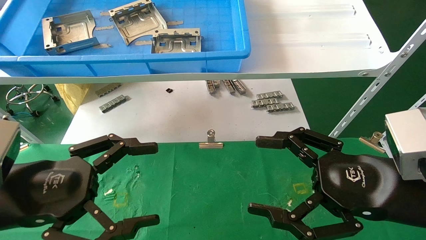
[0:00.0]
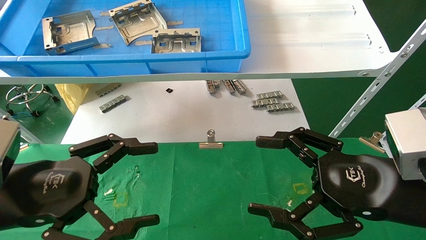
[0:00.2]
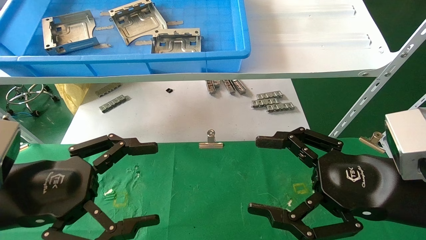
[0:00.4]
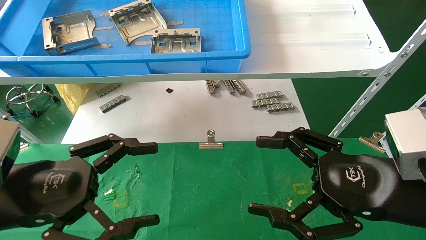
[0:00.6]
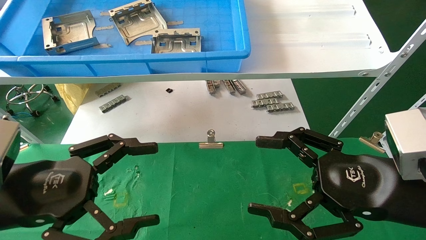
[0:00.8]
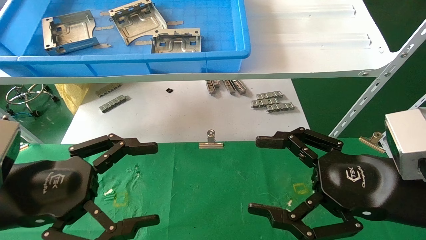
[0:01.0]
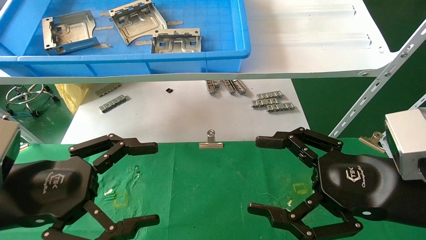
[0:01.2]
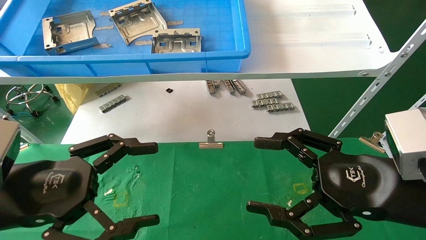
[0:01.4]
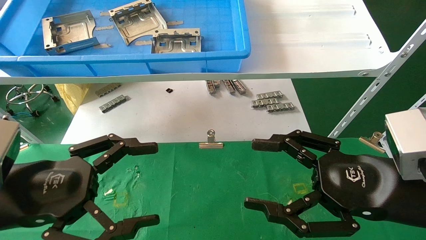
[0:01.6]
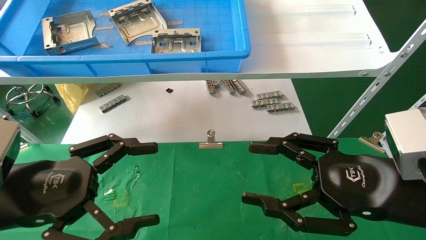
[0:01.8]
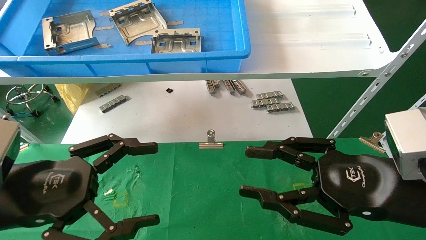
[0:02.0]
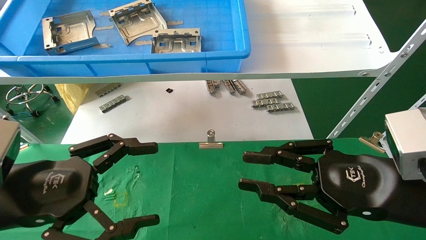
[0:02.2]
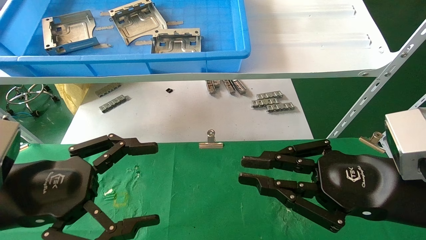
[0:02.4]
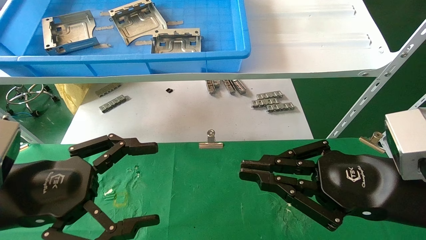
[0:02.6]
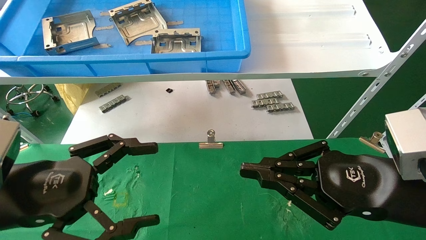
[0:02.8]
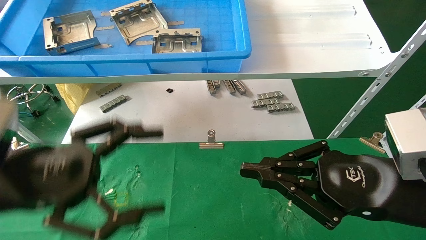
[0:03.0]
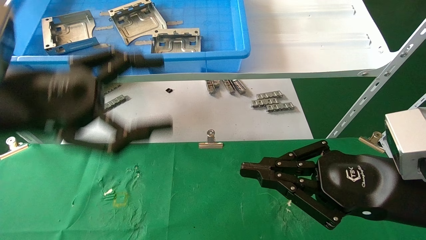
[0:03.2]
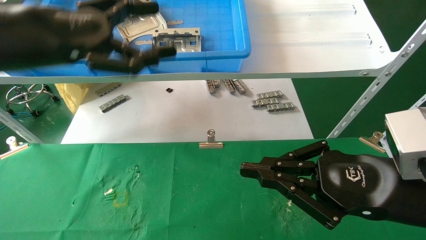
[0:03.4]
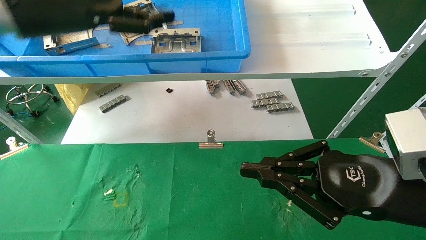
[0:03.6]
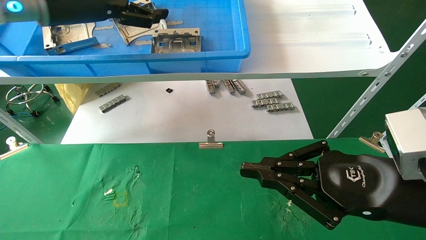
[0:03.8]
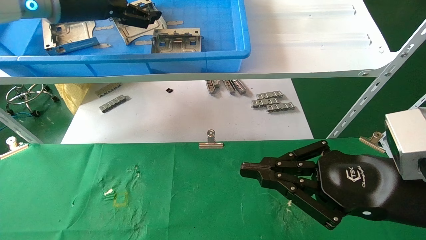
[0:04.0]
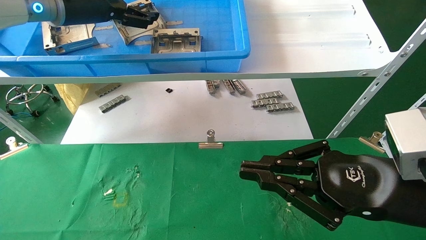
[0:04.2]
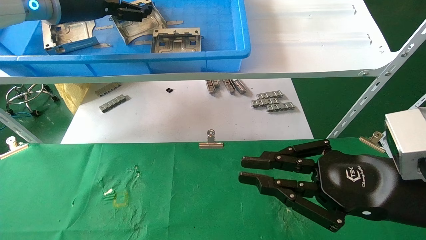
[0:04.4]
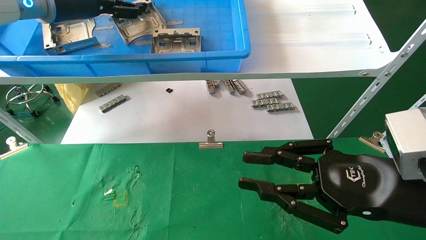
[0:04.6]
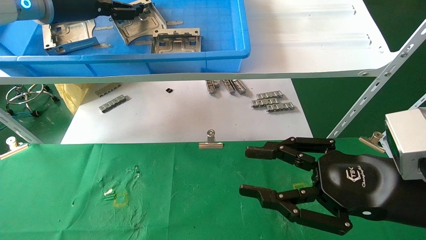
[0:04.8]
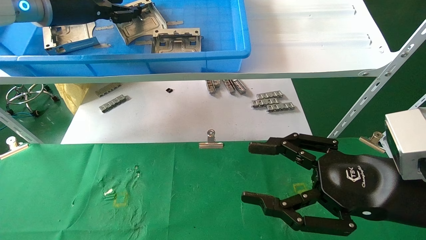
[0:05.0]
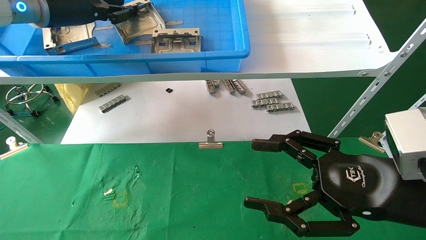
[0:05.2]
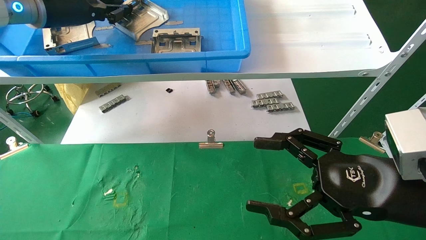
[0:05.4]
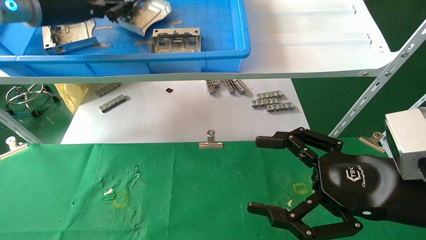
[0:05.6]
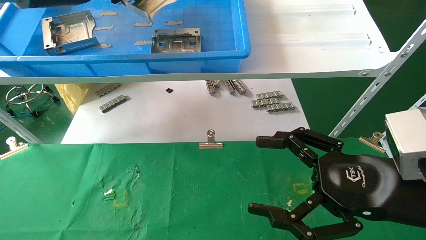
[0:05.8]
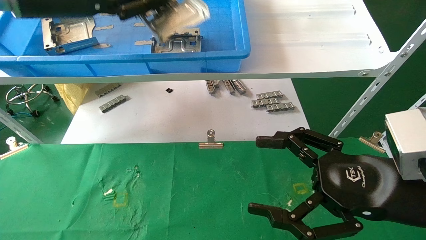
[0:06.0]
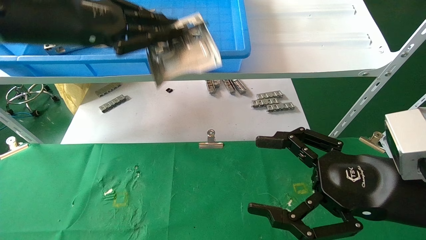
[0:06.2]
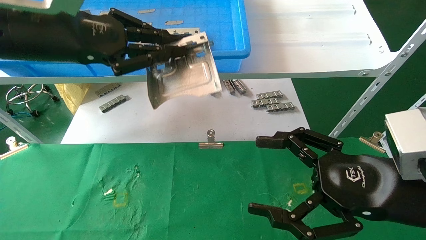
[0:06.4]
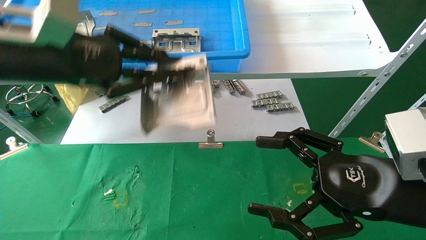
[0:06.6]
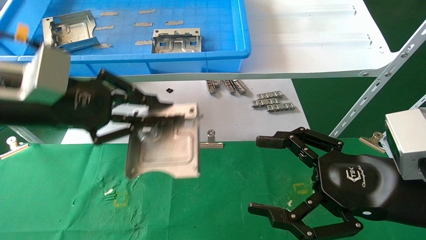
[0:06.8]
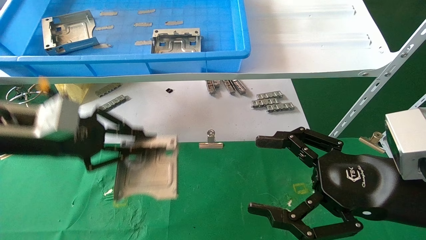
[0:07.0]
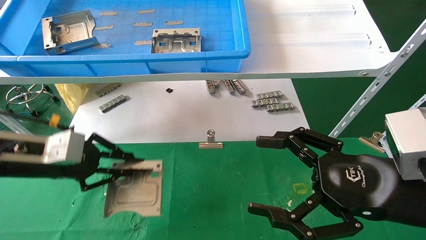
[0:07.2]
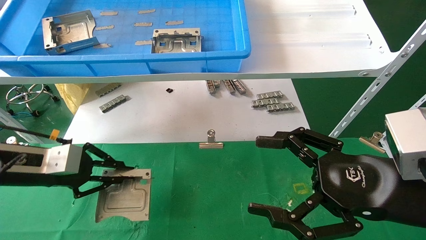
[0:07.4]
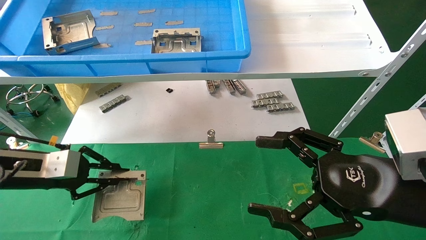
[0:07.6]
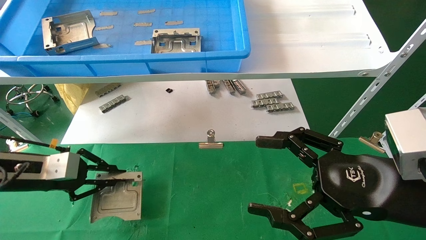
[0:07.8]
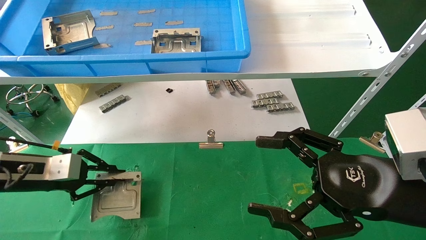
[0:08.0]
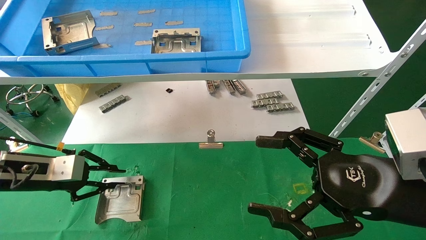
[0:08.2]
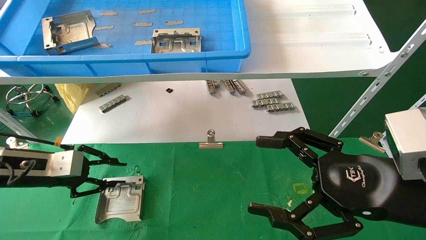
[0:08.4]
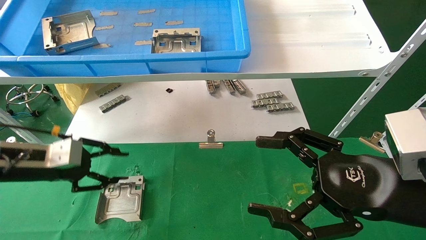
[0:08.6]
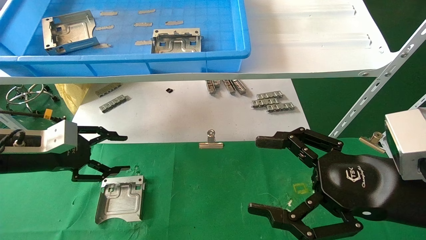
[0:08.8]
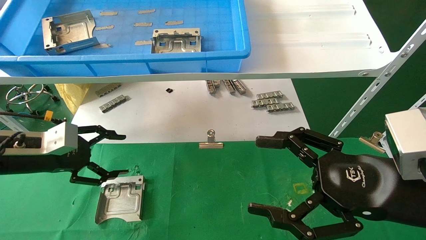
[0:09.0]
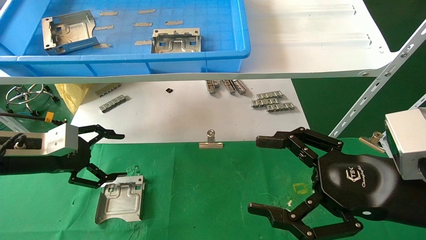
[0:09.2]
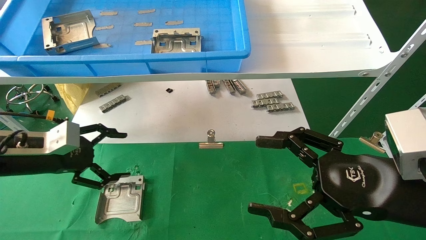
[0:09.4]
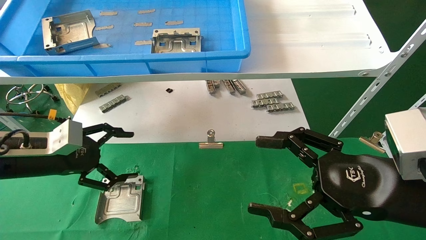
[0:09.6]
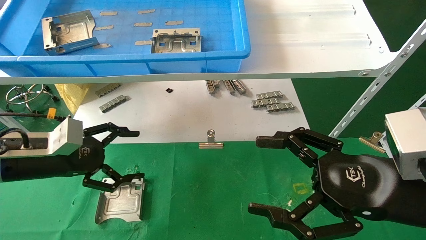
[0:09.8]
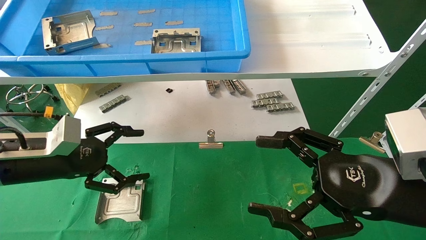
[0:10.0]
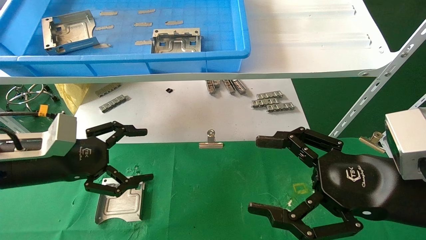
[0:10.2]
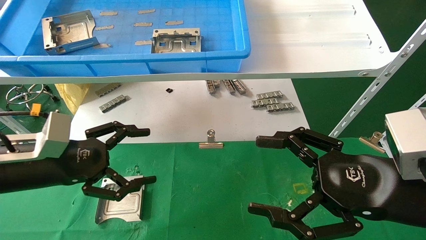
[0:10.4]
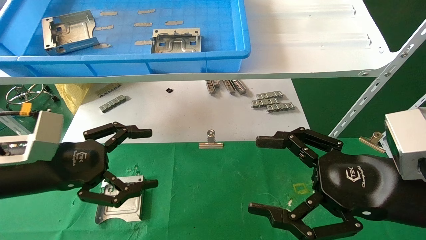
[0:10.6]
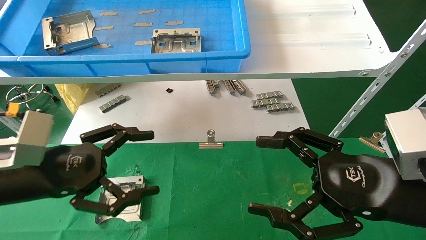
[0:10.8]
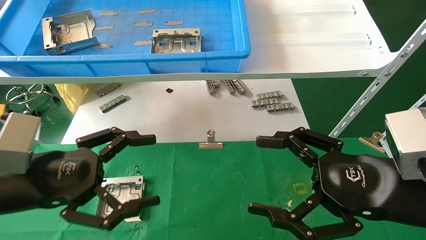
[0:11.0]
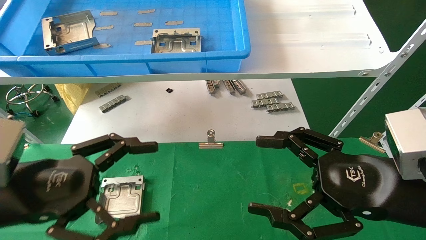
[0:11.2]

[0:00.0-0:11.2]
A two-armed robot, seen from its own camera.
Task of the whole recording: use the mechanical arm to pick up the parts and place them on the table.
Step, 0:03.0 to 0:06.2: Pick up the hard drive bracket from the feeding area.
Step, 0:06.4 to 0:08.6: Place the hard drive bracket into the box.
0:00.0 to 0:01.6: Both grippers stay about where they are.
0:01.6 to 0:03.2: The right gripper closes its fingers; the left gripper goes about 10 cm upward.
0:03.2 to 0:04.8: The left gripper is displaced forward and upward by approximately 20 cm.
0:04.8 to 0:06.4: The left gripper moves backward and downward, about 15 cm, and closes; the right gripper opens up.
0:06.4 to 0:08.0: The left gripper heads downward and to the left, covering some 25 cm.
0:08.0 to 0:09.6: The left gripper opens its fingers.
0:09.6 to 0:11.2: The left gripper travels backward and to the right by roughly 15 cm.

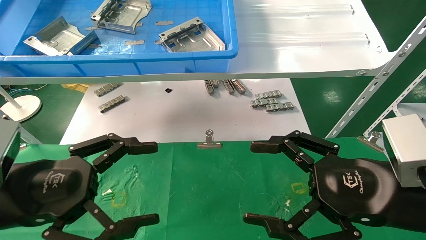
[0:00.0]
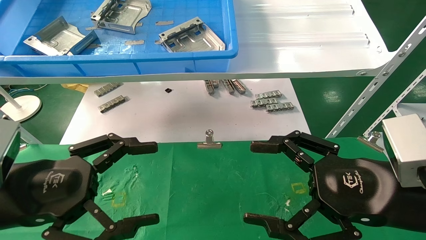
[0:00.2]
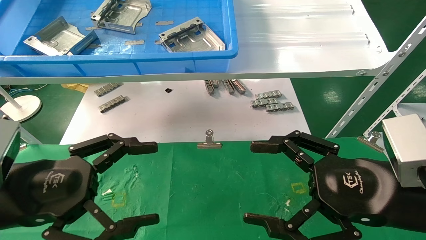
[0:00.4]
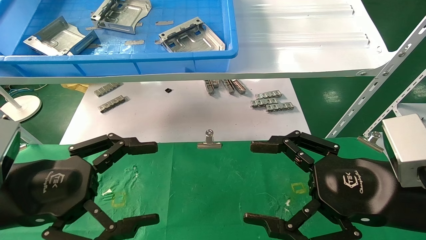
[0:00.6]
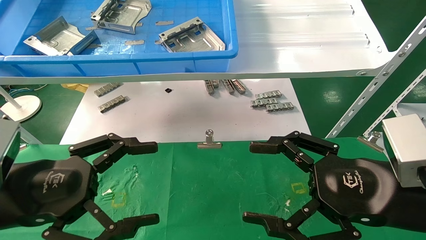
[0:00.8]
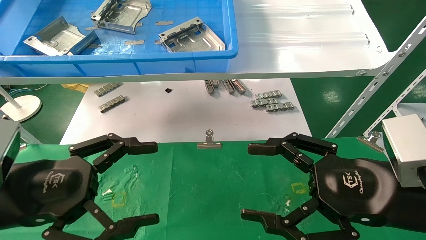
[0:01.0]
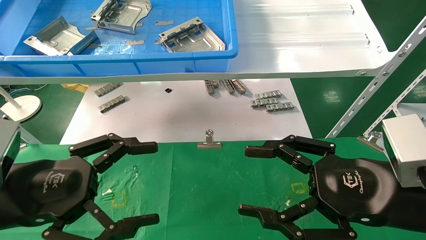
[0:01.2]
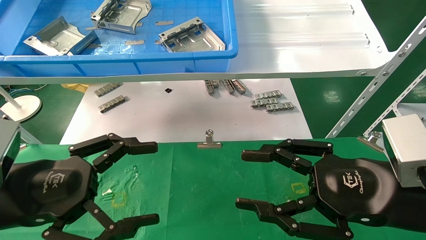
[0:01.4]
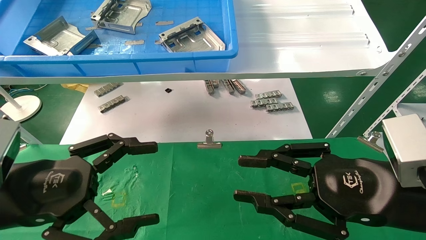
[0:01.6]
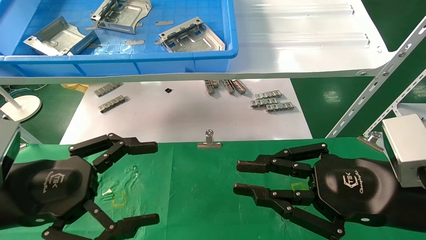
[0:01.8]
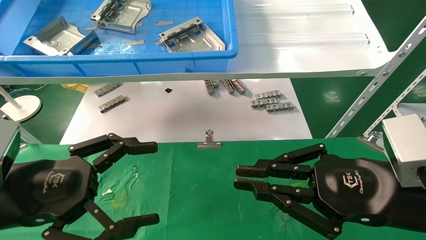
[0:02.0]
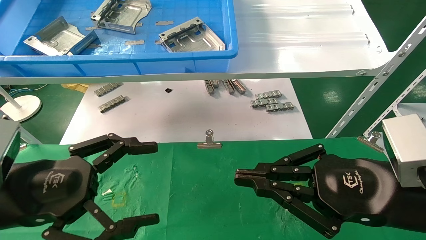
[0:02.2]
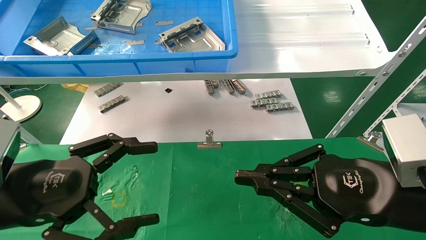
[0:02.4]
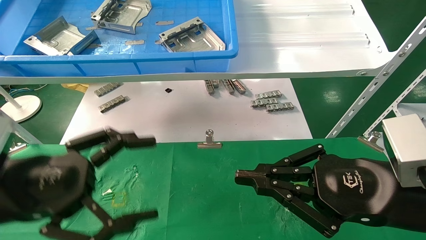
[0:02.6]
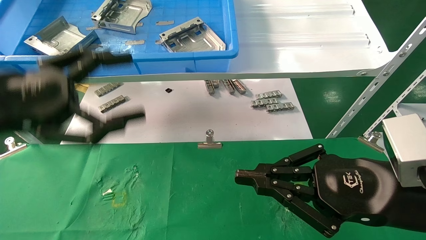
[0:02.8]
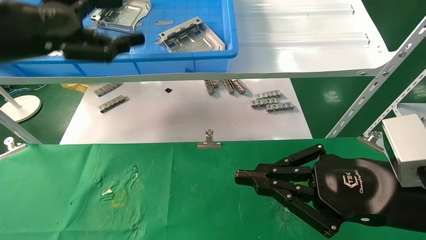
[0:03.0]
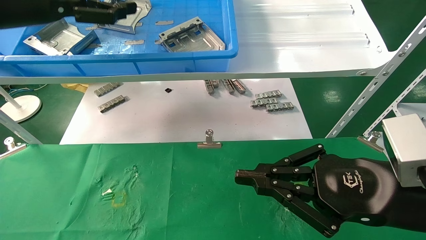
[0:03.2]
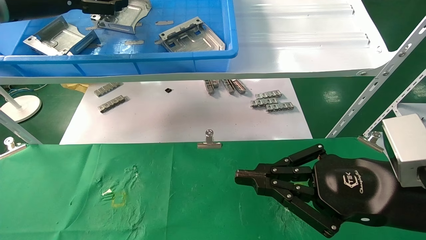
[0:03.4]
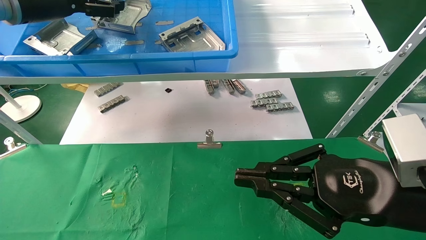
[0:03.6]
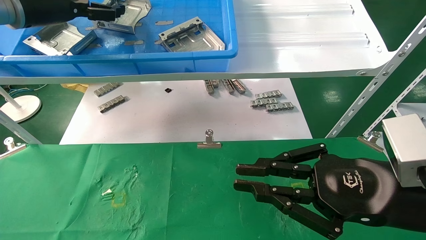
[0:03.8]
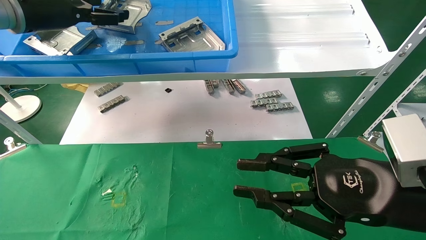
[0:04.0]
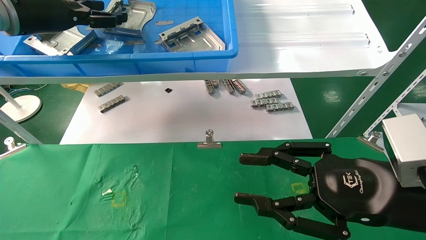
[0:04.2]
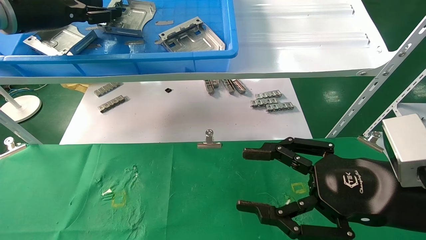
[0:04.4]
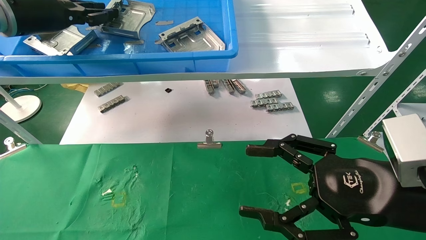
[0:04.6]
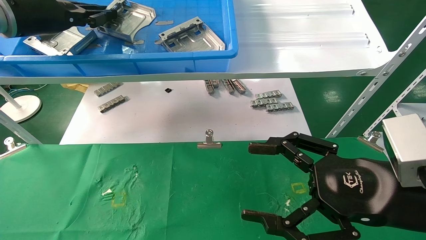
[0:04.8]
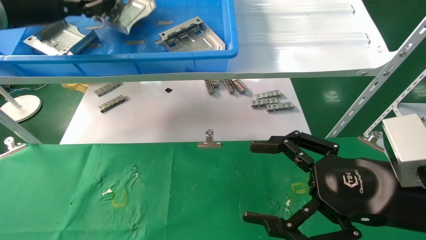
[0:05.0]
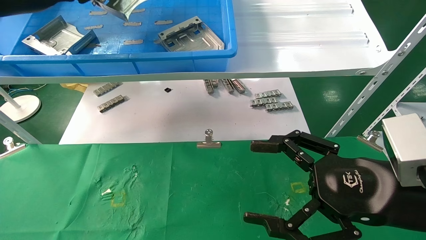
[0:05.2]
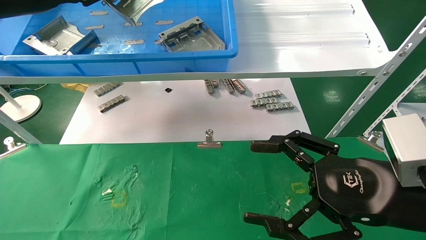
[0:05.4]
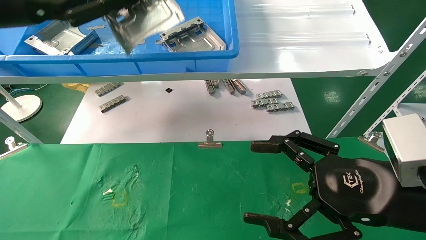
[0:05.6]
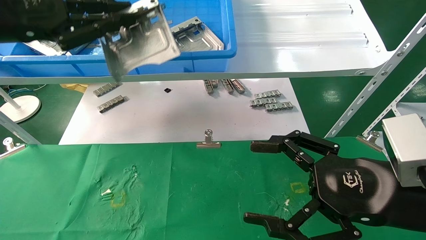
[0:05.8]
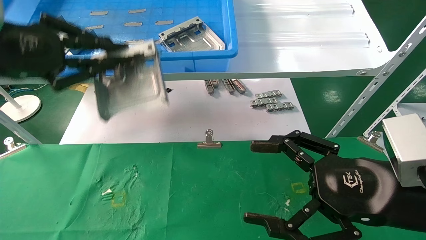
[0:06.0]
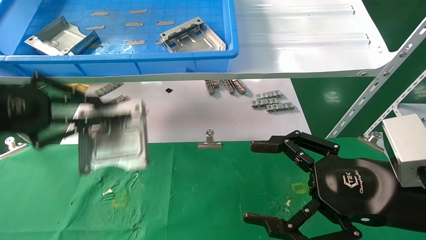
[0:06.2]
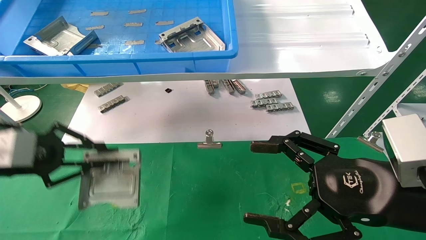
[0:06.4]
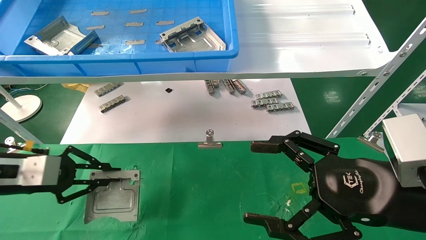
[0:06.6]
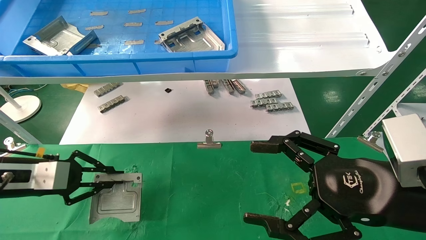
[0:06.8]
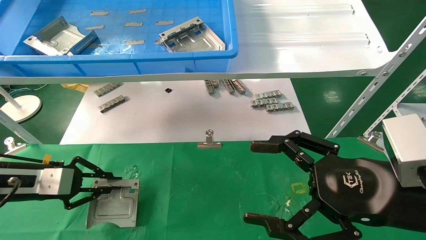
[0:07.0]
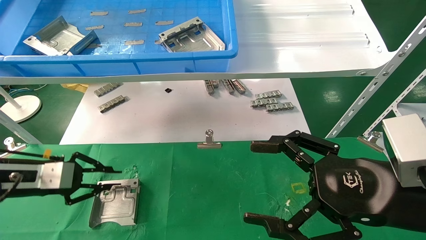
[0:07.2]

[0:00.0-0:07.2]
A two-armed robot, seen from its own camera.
Task of the whole recording: use the mechanical arm to pick up the parts and place them on the table.
Step, 0:03.0 to 0:05.0: Pick up the hard drive bracket from the feeding area.
0:00.0 to 0:01.4: Both grippers stay about where they are.
0:01.4 to 0:02.8: The right gripper closes its fingers; the left gripper moves upward, about 10 cm.
0:02.8 to 0:04.4: The left gripper shifts approximately 20 cm forward and upward, and closes; the right gripper opens up.
0:04.4 to 0:05.8: The left gripper travels backward by about 10 cm, and closes up. The right gripper opens.
0:05.8 to 0:07.2: The left gripper is displaced downward by about 25 cm.
